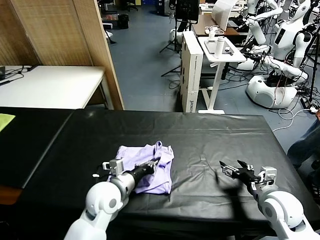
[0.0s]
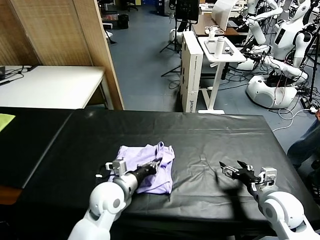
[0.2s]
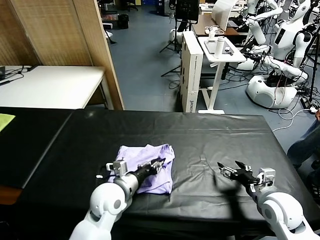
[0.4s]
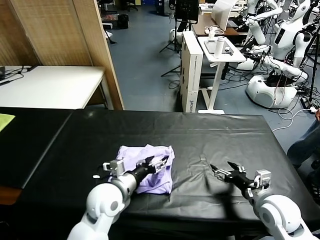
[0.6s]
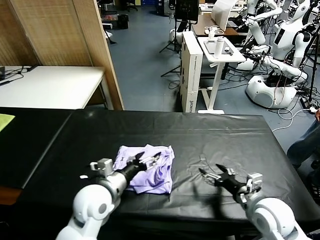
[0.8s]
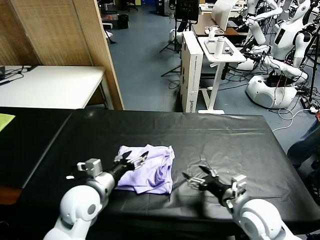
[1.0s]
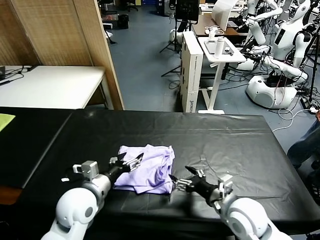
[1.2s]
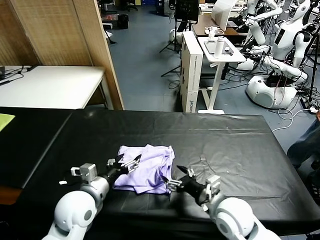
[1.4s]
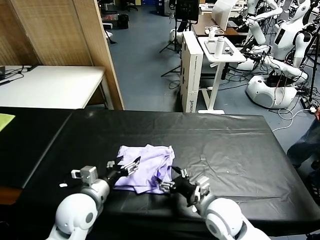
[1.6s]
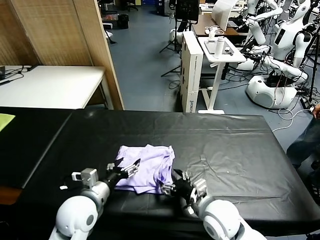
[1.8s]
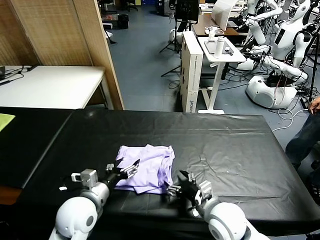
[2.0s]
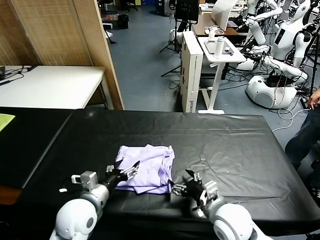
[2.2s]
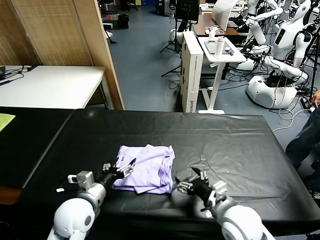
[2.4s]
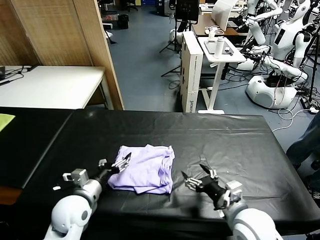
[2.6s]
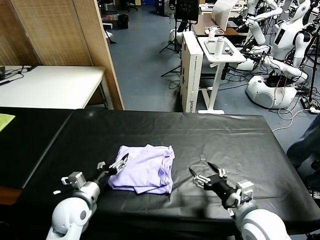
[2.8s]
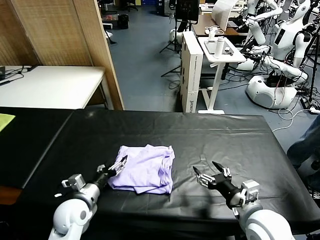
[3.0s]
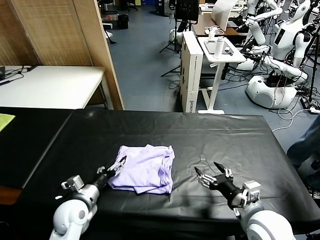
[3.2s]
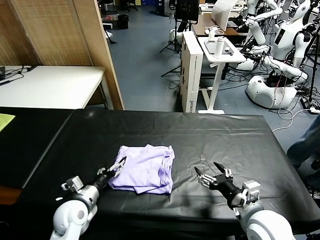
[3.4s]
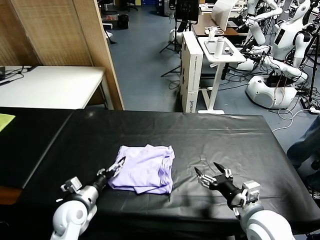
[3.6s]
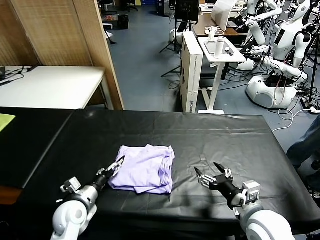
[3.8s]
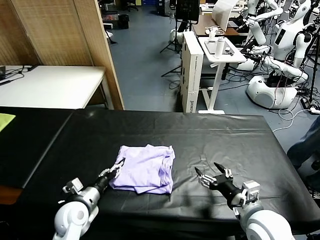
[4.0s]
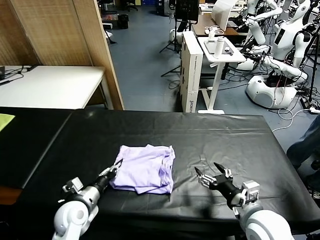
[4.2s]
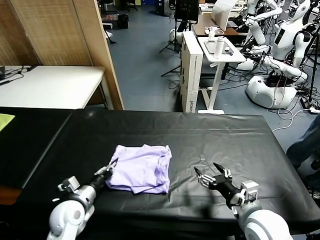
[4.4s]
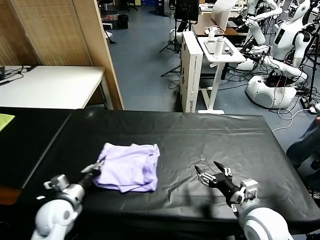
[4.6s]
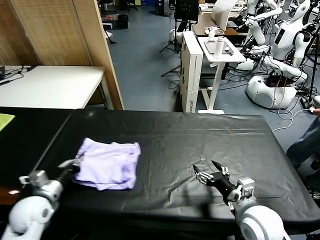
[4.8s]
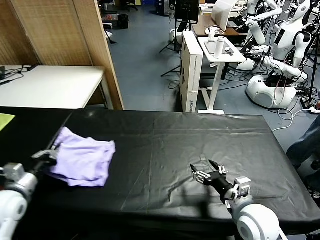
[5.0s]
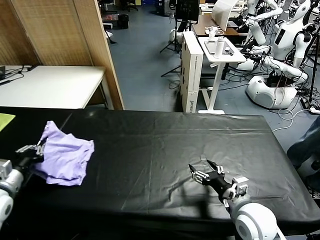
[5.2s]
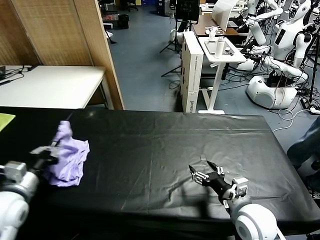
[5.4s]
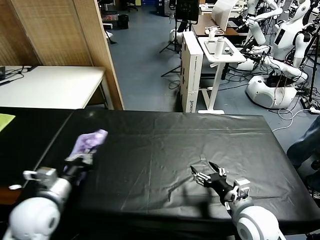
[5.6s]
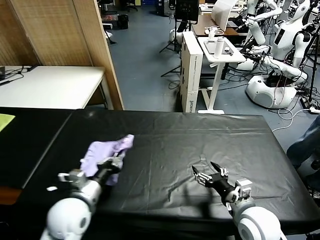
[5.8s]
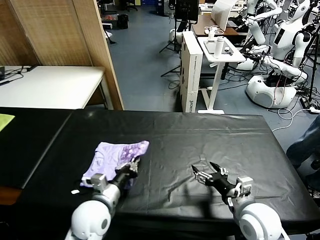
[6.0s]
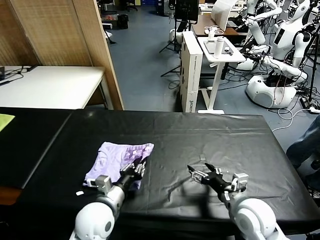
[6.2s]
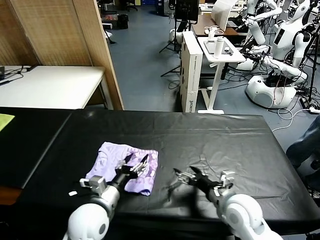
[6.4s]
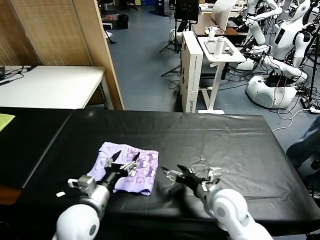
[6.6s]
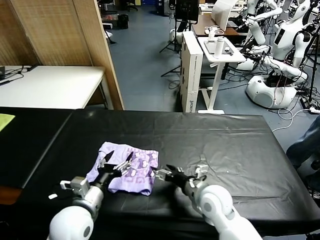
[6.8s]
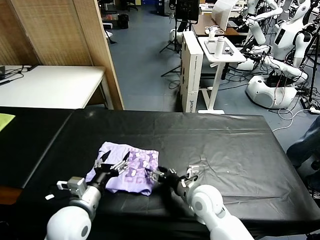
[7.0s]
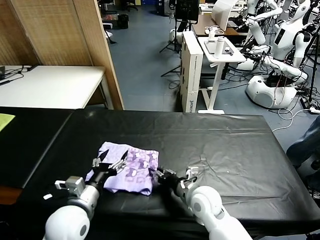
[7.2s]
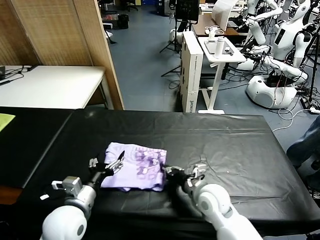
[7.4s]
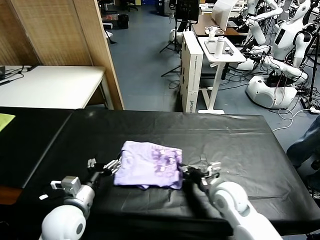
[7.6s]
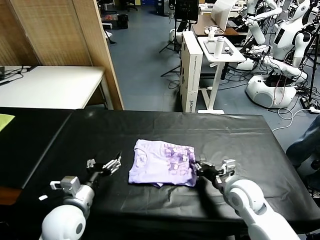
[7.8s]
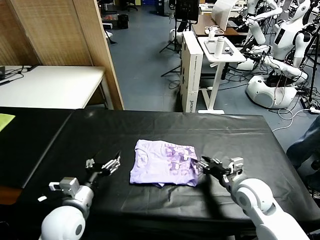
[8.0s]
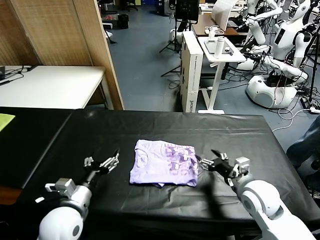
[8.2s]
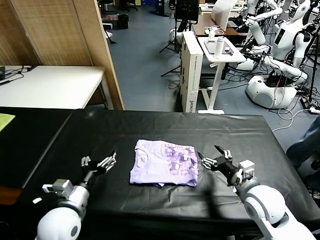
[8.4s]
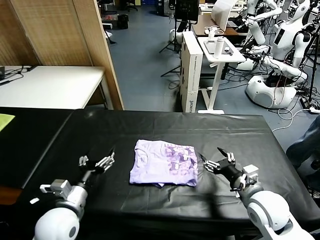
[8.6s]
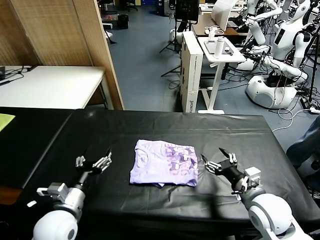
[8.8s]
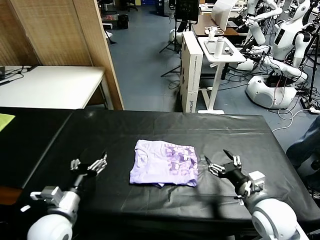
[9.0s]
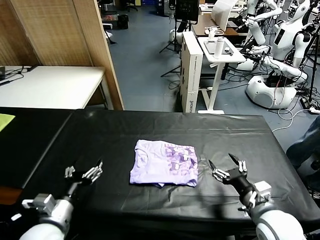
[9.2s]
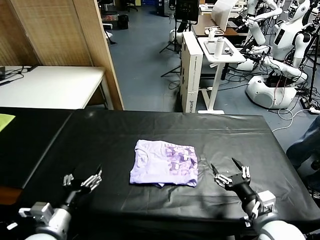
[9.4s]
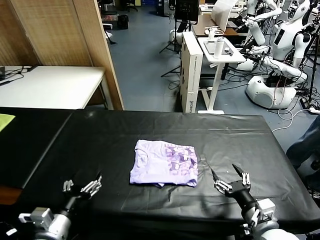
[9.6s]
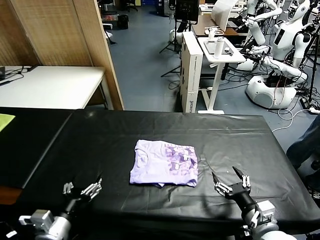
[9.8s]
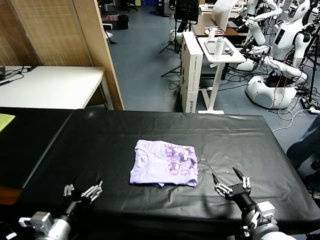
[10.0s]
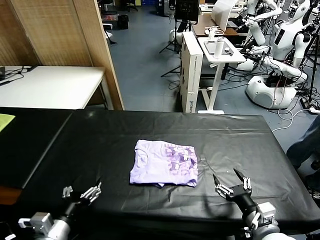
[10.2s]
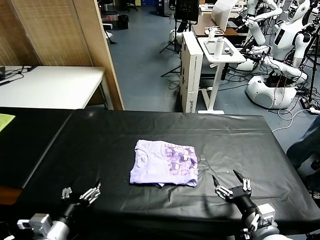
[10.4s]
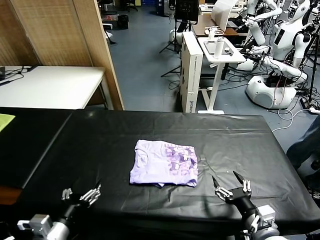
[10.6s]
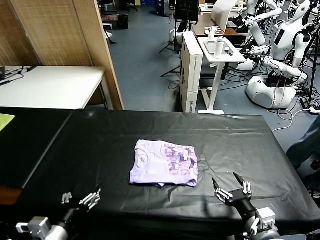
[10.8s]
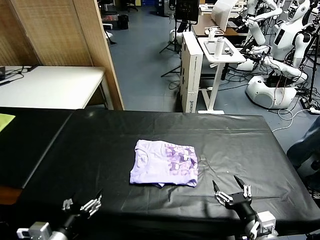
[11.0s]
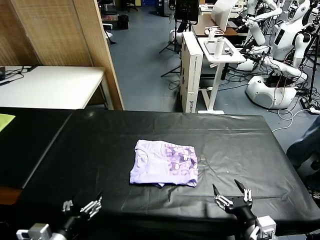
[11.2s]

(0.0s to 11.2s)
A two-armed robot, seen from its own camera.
Task of the whole recording: fold and organize the clothes.
Step, 1.0s - 6.4s: Flip the folded clothes over with left gripper.
Step, 6.6s - 8.0s: Drag the clothes to the center of the table.
0.0s - 1.6s: The left gripper goes about 5 cm to the left, and opens its fingers. The right gripper shifts approximately 15 cm to the left.
1.6s - 3.2s: The left gripper travels downward and to the left by some 10 cm. Meanwhile the right gripper heads to the right, upward and backward, covering some 10 cm.
3.2s - 4.8s: The left gripper goes approximately 10 cm to the left, and closes its fingers.
4.8s - 6.4s: The right gripper changes place by roughly 5 cm; the left gripper heads to the right, covering approximately 20 cm, and opens its fingers.
6.4s - 8.0s: The left gripper heads to the left, covering some 5 cm. Meanwhile the right gripper goes to the left and returns, some 10 cm each way, and closes its fingers.
8.0s - 9.6s: The right gripper goes some 15 cm backward, and opens; the left gripper shifts approximately 10 cm backward.
9.6s - 11.2s: There are only small adjustments of the grippers.

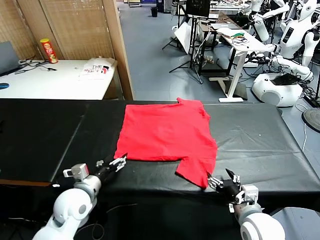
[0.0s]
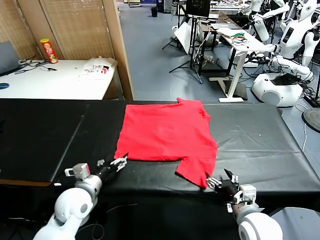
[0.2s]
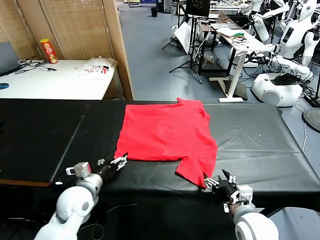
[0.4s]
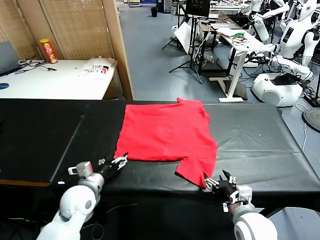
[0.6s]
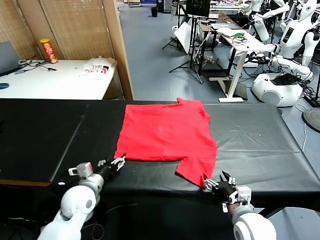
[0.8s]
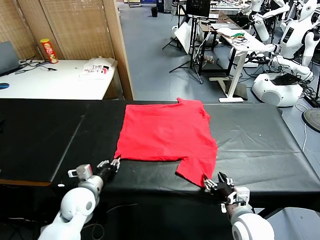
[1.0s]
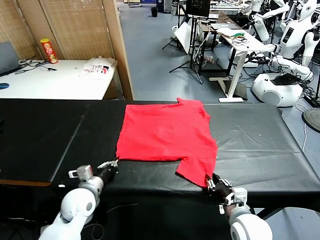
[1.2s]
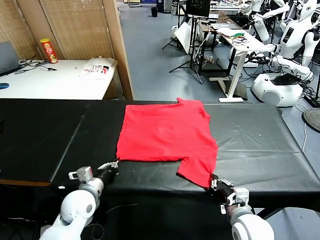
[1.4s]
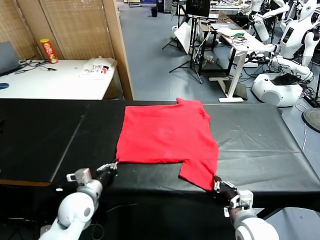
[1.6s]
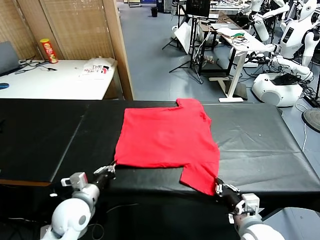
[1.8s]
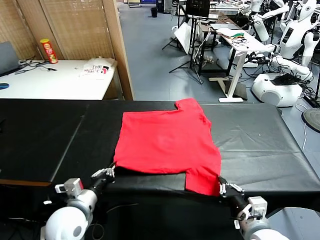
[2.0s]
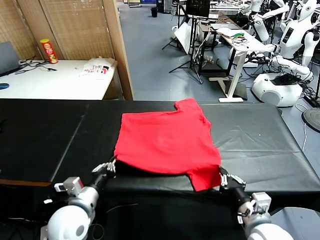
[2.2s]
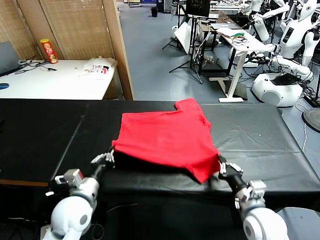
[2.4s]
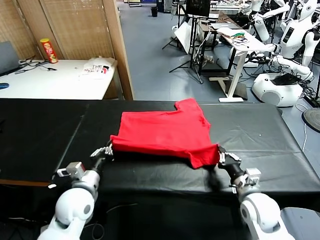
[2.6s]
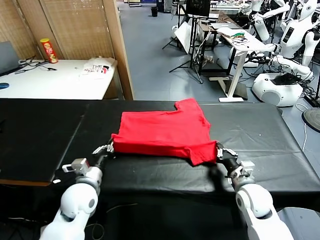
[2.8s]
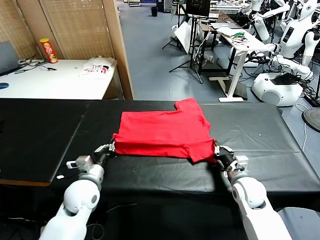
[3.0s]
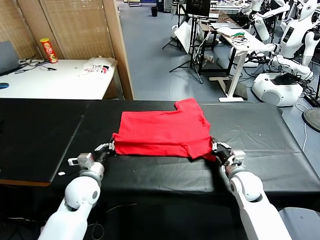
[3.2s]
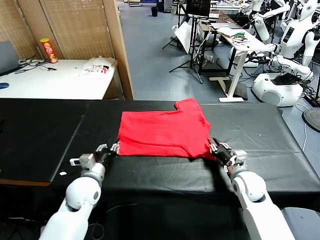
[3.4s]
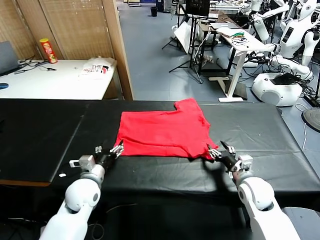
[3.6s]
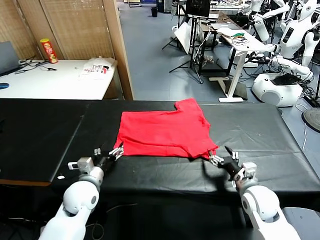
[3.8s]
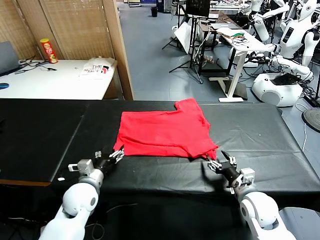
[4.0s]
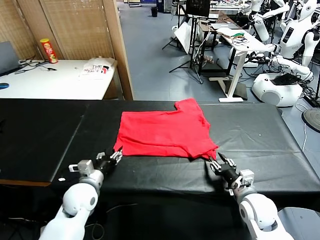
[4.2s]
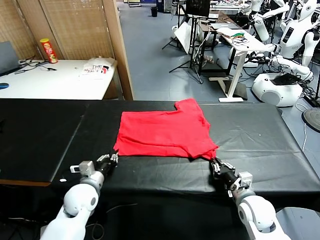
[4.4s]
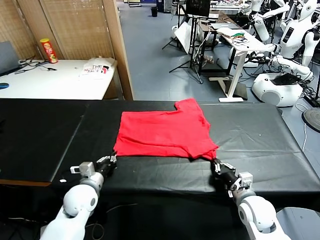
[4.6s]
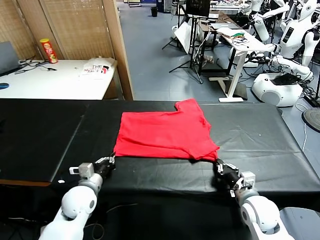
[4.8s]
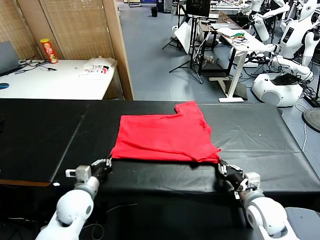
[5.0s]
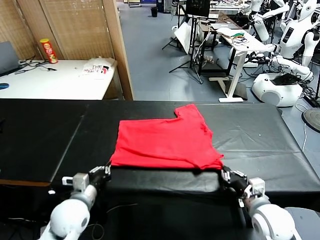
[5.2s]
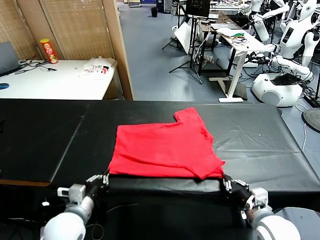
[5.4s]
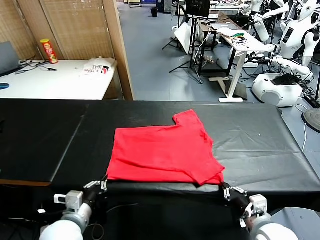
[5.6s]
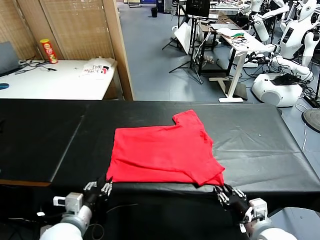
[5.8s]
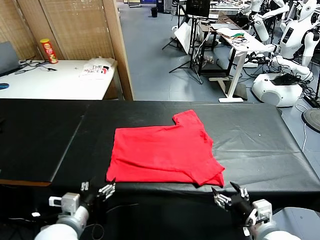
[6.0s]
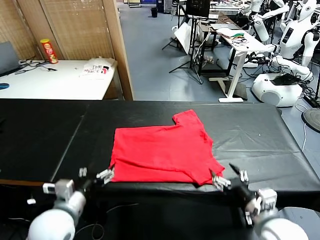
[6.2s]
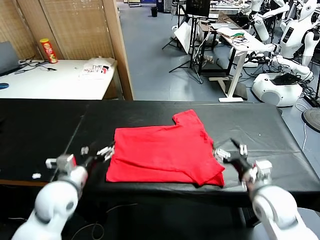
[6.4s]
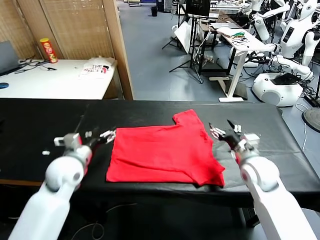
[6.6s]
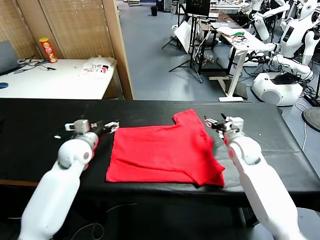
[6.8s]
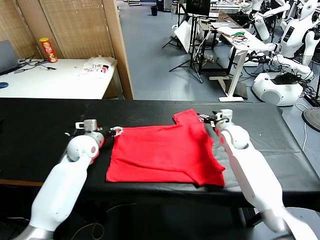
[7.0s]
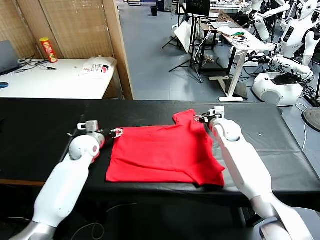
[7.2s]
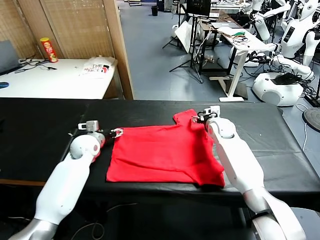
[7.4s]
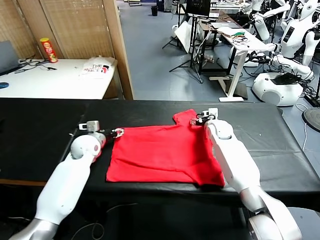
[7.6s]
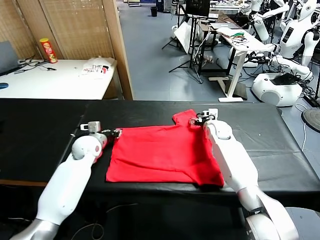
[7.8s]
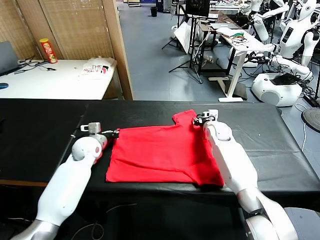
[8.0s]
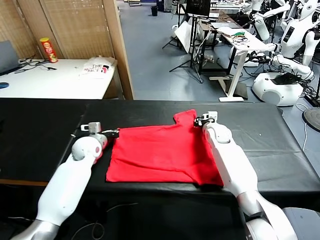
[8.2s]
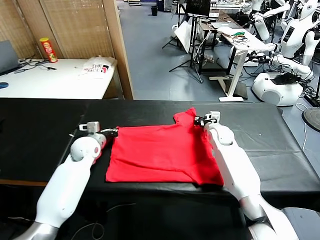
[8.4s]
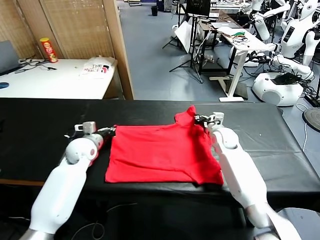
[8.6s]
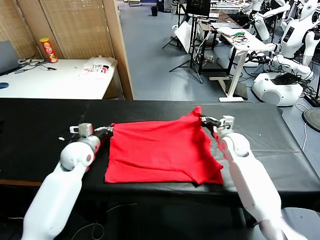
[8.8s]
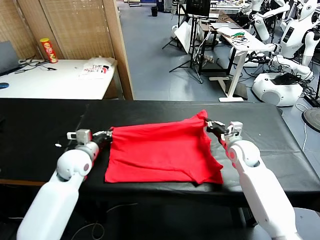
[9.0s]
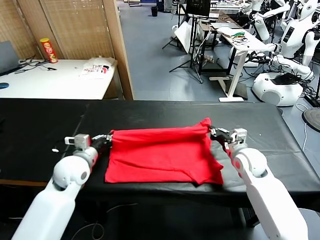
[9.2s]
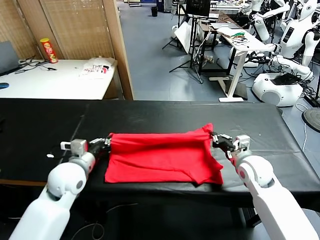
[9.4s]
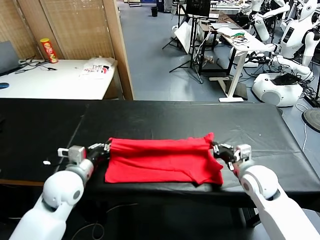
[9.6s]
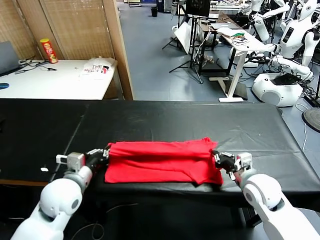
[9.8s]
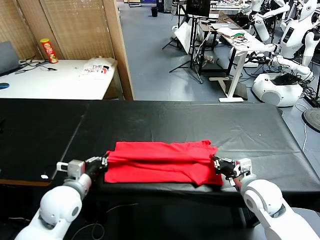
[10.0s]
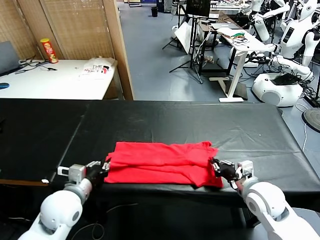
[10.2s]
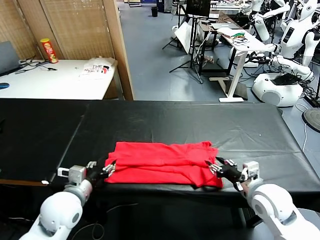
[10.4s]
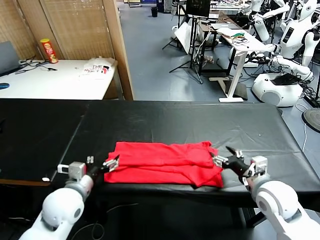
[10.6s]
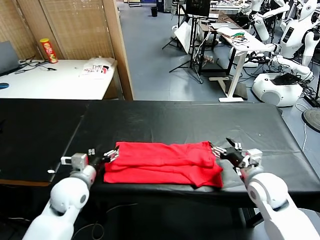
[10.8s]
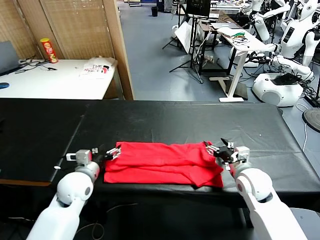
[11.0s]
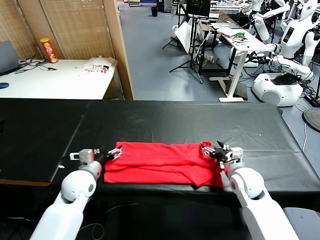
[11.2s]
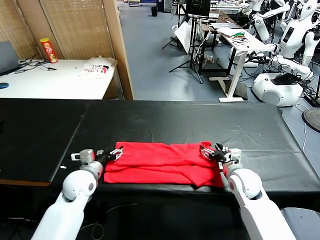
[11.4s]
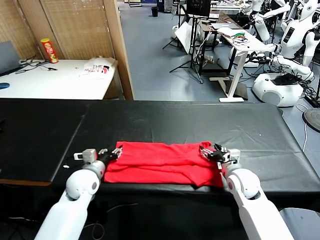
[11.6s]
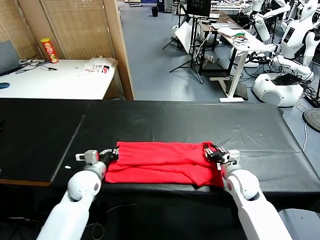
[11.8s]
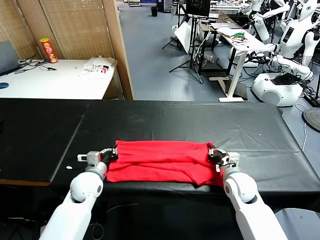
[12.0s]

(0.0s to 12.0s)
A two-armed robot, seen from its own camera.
Task of the whole recording: fold and organize the clothes.
Step, 0.0s - 1.4s: use both grippers simultaneously to clamp the lower edge of the clothing fabric.
Step, 1.6s - 3.6s: use both grippers to drag the lower edge of the fabric forward and fold it over the upper edge.
Step, 3.8s - 6.0s: Drag the clothes downward with both gripper.
Step, 6.2s - 8.2s: use both grippers simultaneously to clamp the upper edge of the clothing fabric.
Step, 8.4s - 10.6s: use both grippers to drag the upper edge of the fabric backward and fold it over the lower edge.
1.6s - 3.0s: The right gripper shifts approximately 20 cm forward. Meanwhile the left gripper is displaced forward by roughly 5 cm.
3.0s - 4.4s: The right gripper moves backward, approximately 10 cm, and opens, then closes once more, while the left gripper opens, then closes again.
4.4s - 6.0s: The left gripper heads backward and upward, covering about 15 cm, and opens; the right gripper is displaced upward and backward by some 10 cm, and opens its fingers.
6.0s - 7.6s: The two grippers go some 35 cm forward.
7.6s - 9.0s: The right gripper moves backward and to the right, about 15 cm, and closes its fingers. Meanwhile the left gripper is displaced backward by approximately 10 cm, and closes its fingers.
9.0s - 10.4s: Both grippers travel together backward, some 15 cm. The right gripper opens up. The left gripper opens.
10.4s - 12.0s: The left gripper goes approximately 15 cm forward and downward, and closes up. The right gripper moves downward and forward, approximately 10 cm, and closes.
